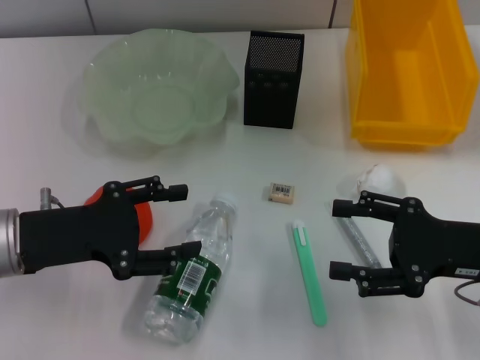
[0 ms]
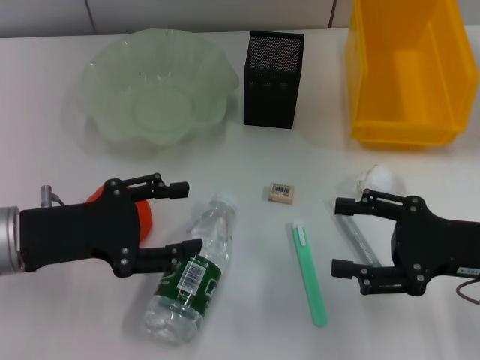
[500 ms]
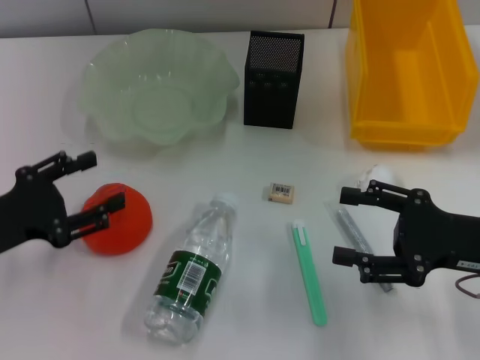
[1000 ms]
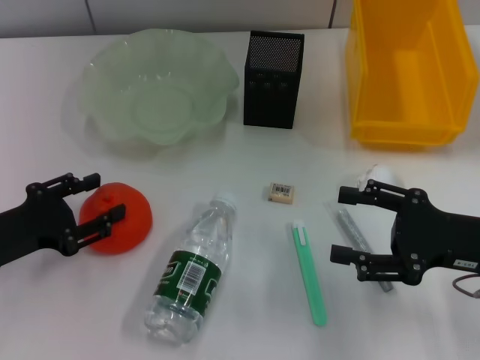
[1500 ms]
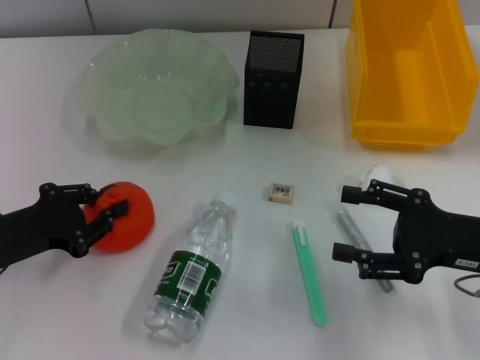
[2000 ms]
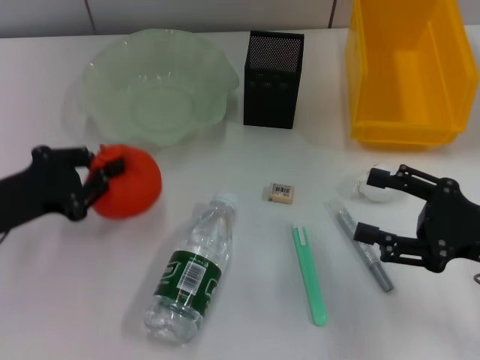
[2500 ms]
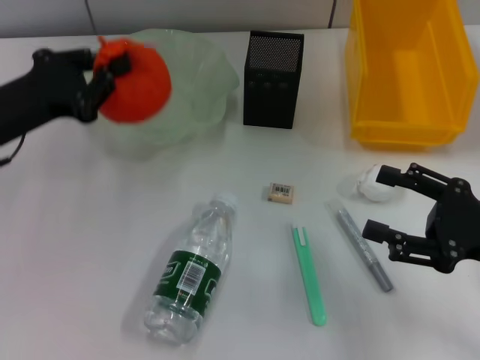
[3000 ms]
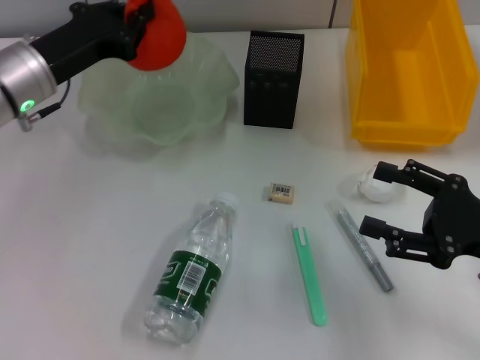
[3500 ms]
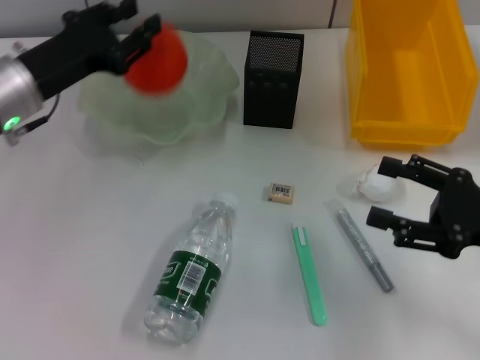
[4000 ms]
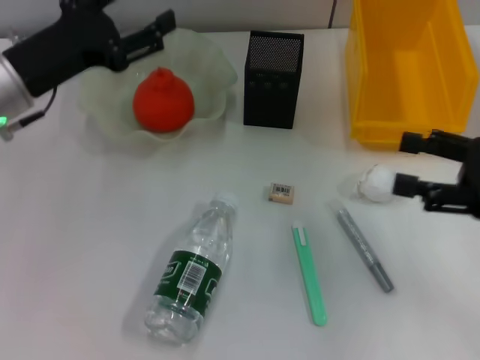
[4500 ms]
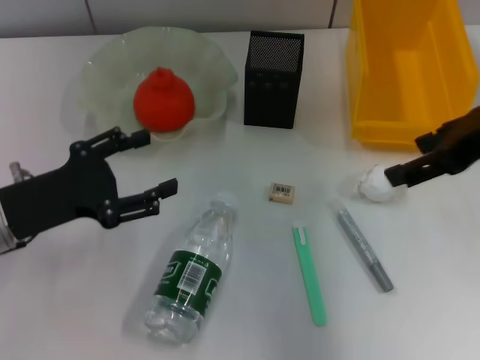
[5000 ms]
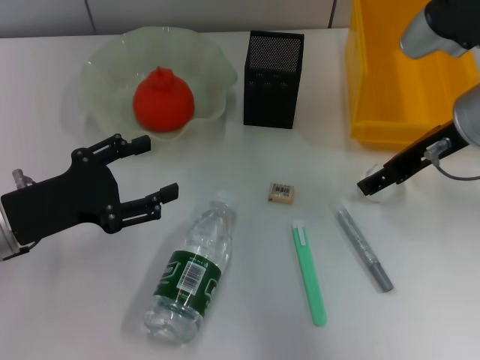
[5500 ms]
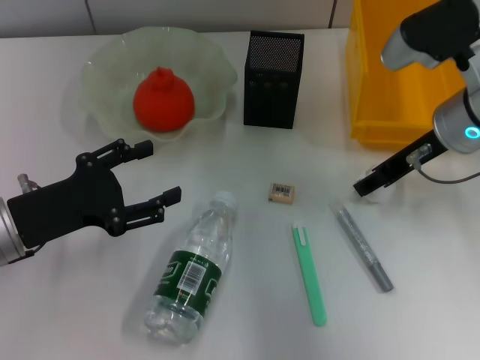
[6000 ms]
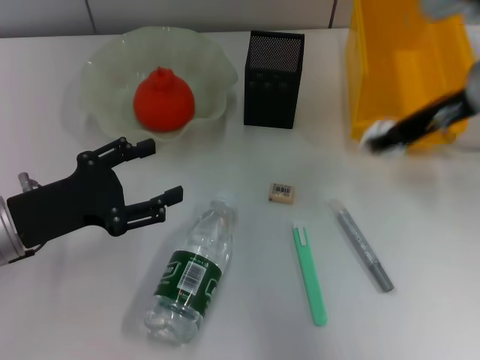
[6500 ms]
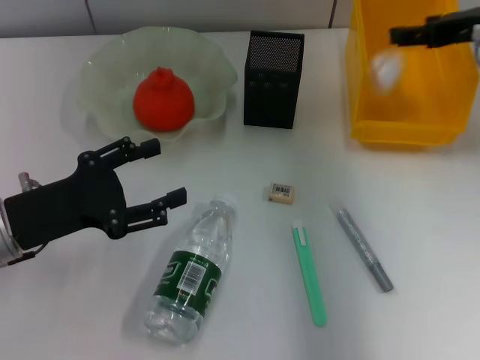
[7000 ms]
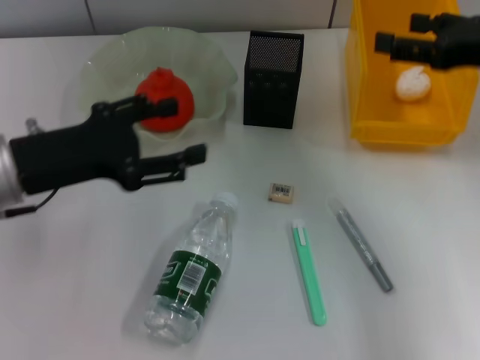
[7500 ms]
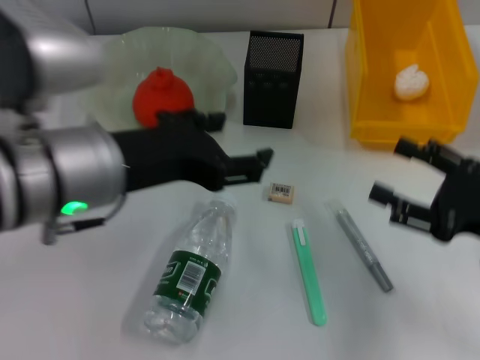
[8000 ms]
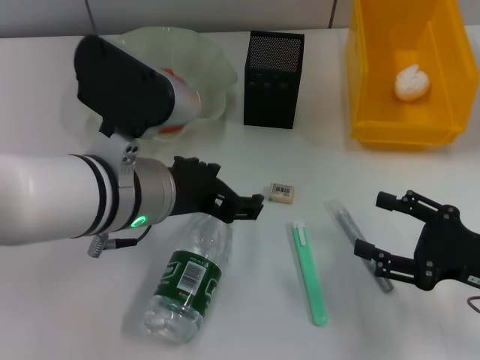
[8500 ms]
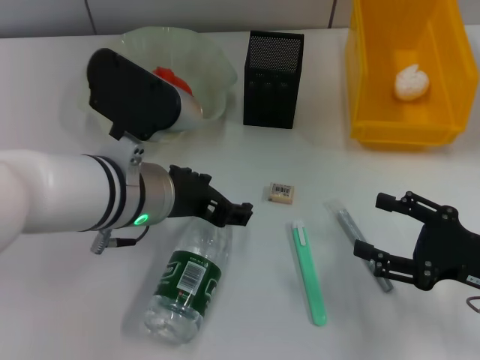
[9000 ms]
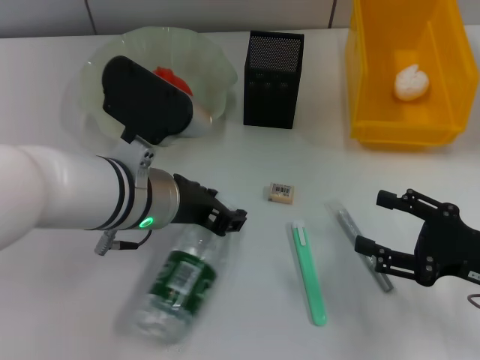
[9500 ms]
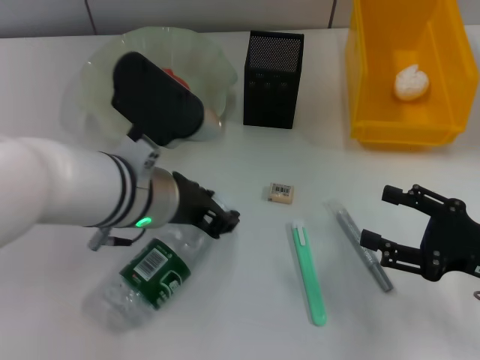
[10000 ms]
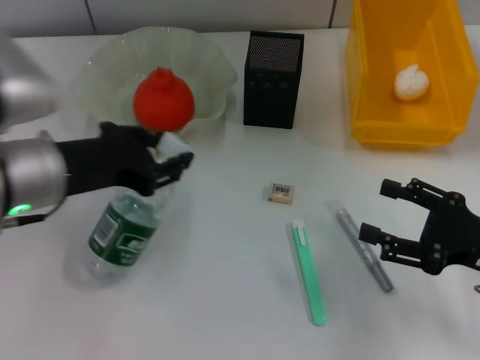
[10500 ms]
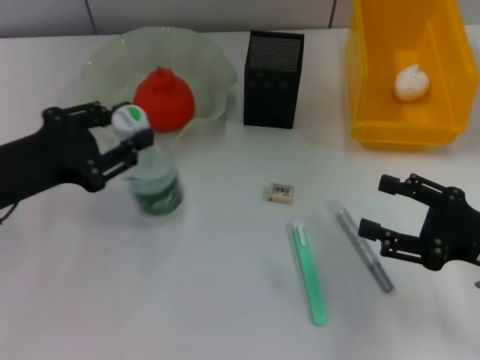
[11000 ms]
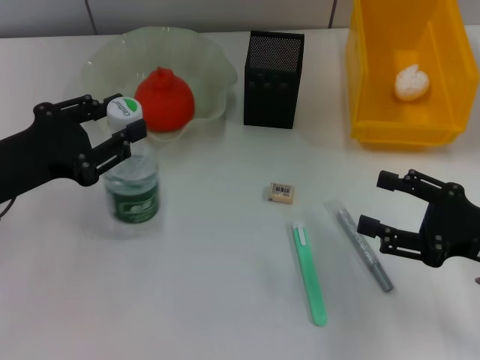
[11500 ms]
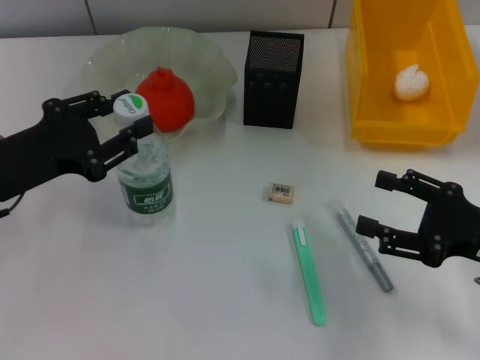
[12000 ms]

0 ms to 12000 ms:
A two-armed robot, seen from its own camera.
Step, 0 ms to 2000 ms: Grab the orange with the left hand.
Step, 2500 ms to 4000 ms: Place the orange into the fruit bowl with the left hand.
Step, 5000 ms to 6000 ms: Grab the paper ball with the right hand.
Step, 6500 ms to 7000 ms: Place the paper ball into the trash can with the right hand.
Step, 7500 ms to 9500 ms: Grab the water bottle with the left hand.
0 ms to 2000 ms: The left gripper changes place by about 5 cm, and closes up.
2000 ms to 4000 ms: The left gripper is displaced forward and upward by approximately 15 cm.
4000 ms to 6000 ms: The left gripper is displaced backward and downward by some 10 cm, and opens; the right gripper goes about 20 cm forward, to the left and upward.
6000 ms to 8000 ms: The right gripper travels backward, to the right and downward by about 20 cm; the left gripper travels to the right and upward by approximately 20 cm.
8000 ms to 10000 ms: The left gripper is displaced downward by some 5 cm, and closes.
10000 ms to 12000 ms: The left gripper goes roughly 15 cm to the left.

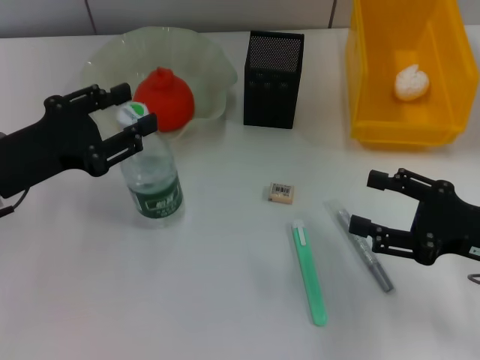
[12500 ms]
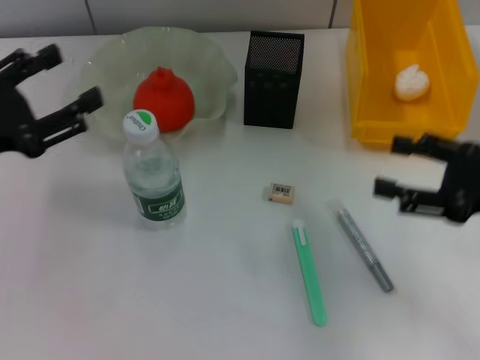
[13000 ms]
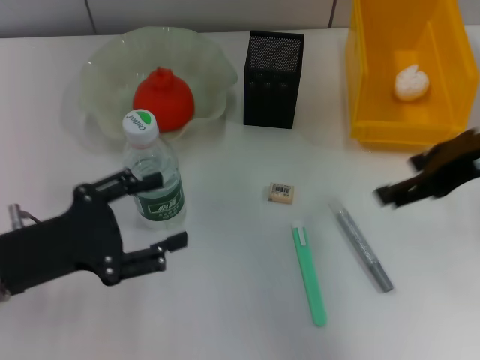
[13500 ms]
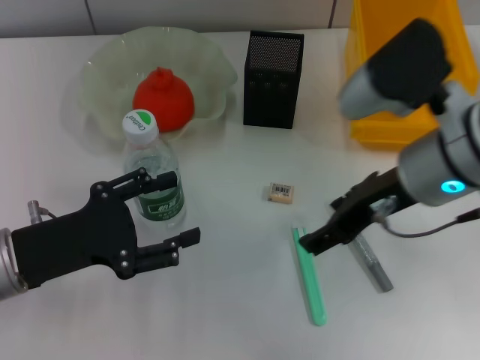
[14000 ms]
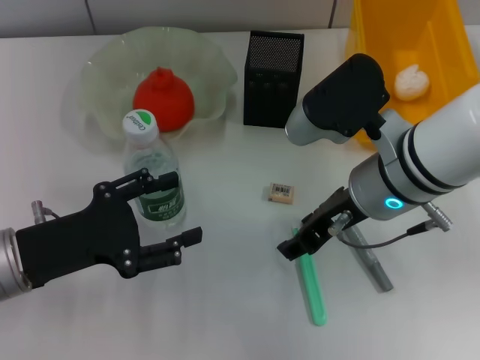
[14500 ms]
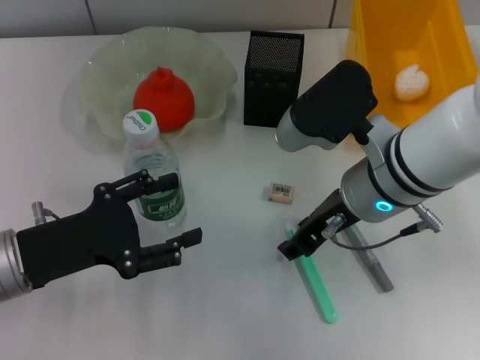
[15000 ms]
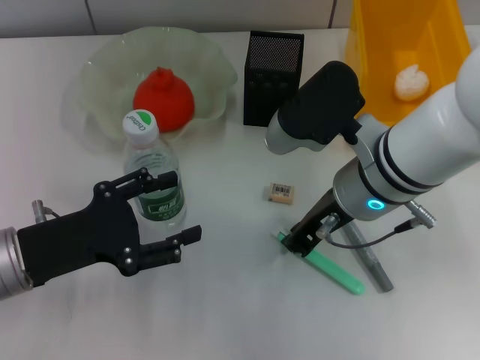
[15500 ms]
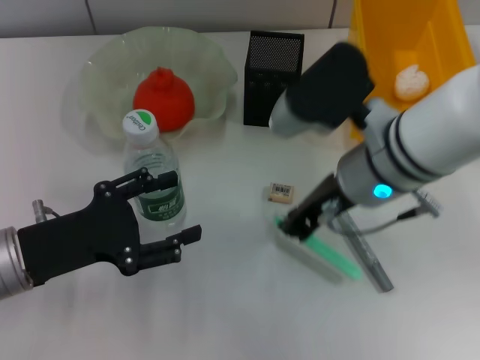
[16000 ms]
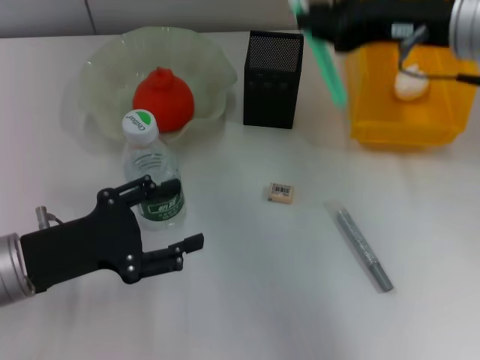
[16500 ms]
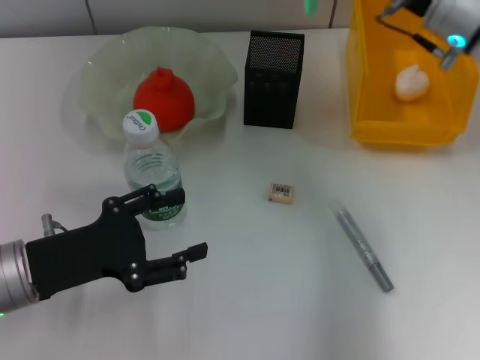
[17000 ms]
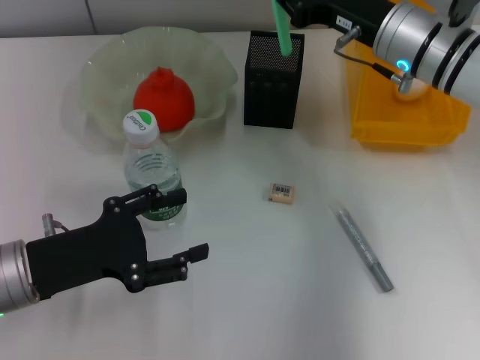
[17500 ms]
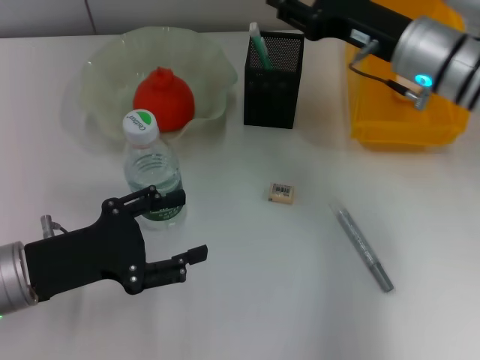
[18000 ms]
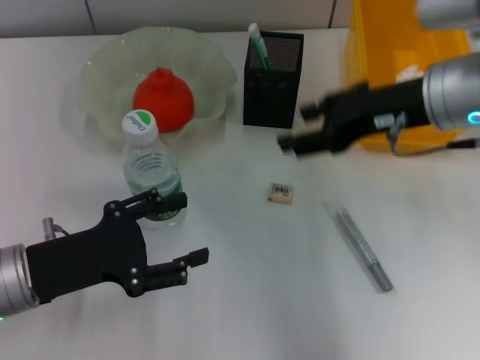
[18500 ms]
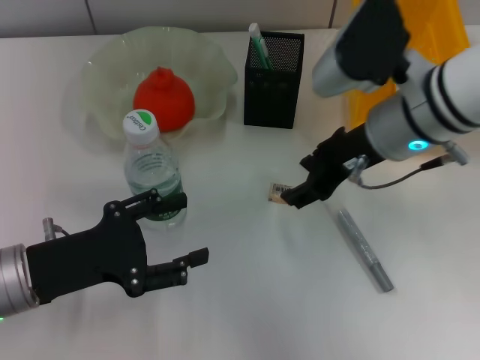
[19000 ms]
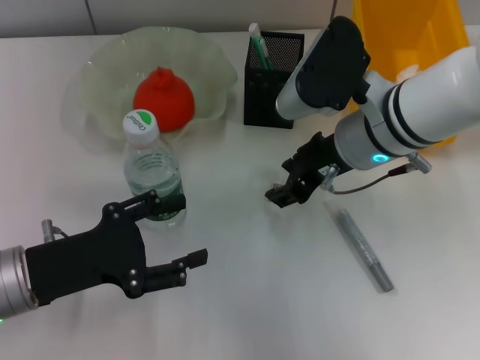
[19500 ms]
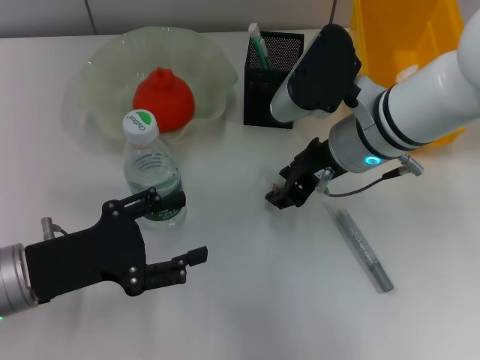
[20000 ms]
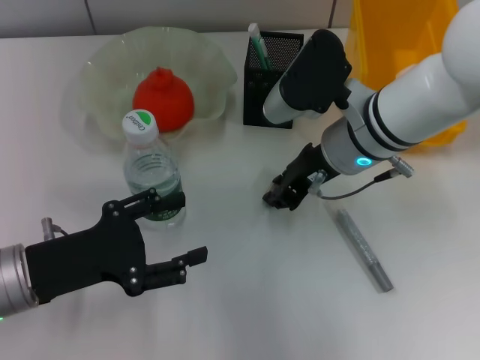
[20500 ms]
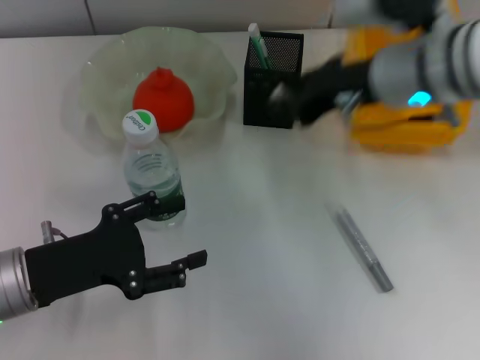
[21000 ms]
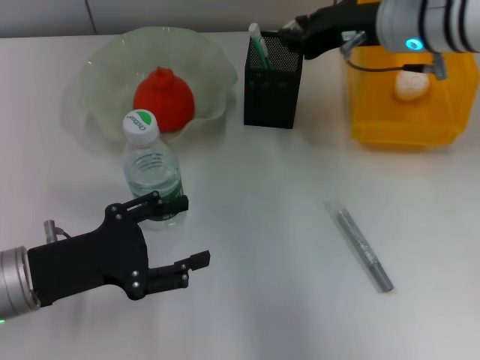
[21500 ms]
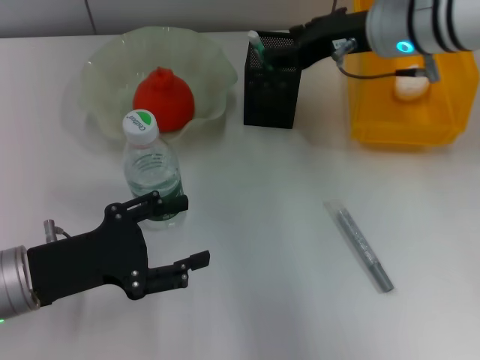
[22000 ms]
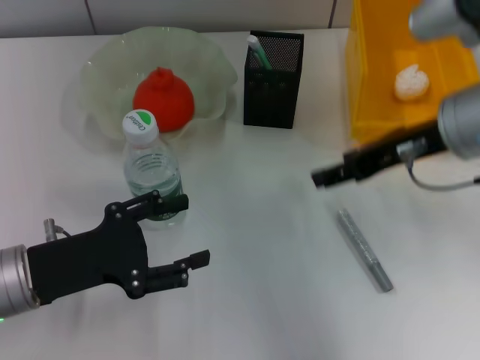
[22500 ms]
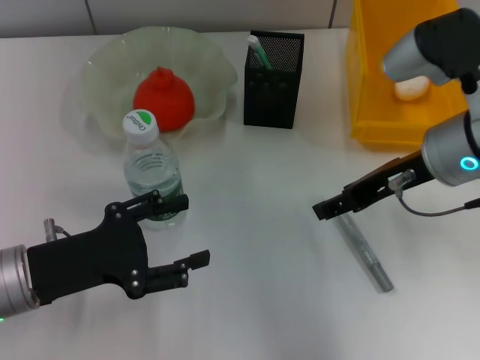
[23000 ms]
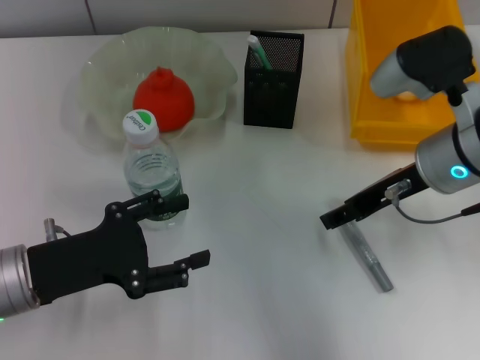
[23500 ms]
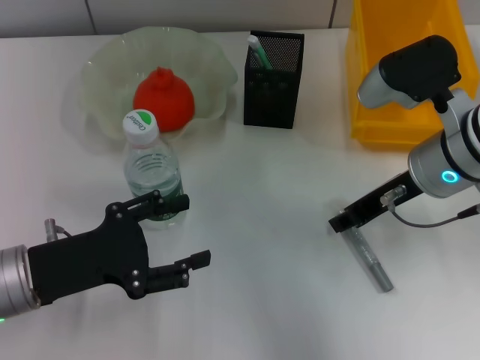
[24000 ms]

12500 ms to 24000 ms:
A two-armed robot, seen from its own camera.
Step, 14000 ms to 15500 ms: Grab the blue utility knife with the right hand.
Step, 16000 ms to 17500 ms: Place the blue utility knife into the pen holder with the right hand.
Step, 18000 ms to 20500 ms: Grab the eraser with the right hand.
Step, 21000 ms to 22000 ms: Put the eraser into the pen holder with the right hand.
12500 ms to 14500 ms: The right gripper travels to the left and forward by roughly 20 cm; the left gripper ends up roughly 5 cm from where it was, and opens up.
14500 ms to 16500 ms: The right gripper moves upward and to the right, some 10 cm, and closes its fingers.
16500 ms to 18500 ms: The right gripper opens up.
18500 ms to 20000 ms: The right gripper is displaced to the left and downward by approximately 10 cm.
20000 ms to 22000 ms: The right gripper travels upward and forward by approximately 10 cm.
22000 ms to 24000 ms: The right gripper heads backward and downward, covering about 10 cm.

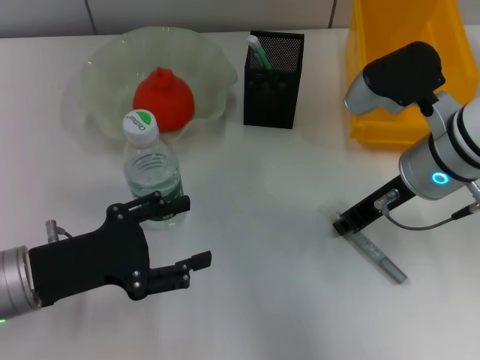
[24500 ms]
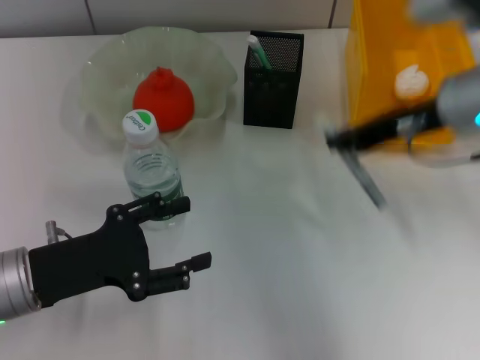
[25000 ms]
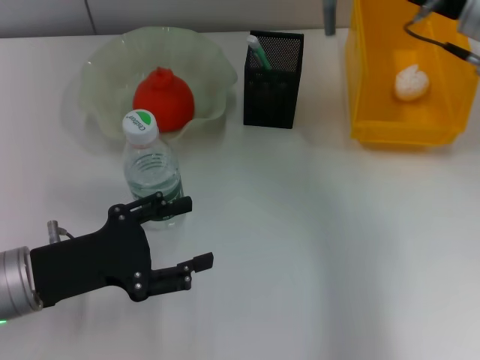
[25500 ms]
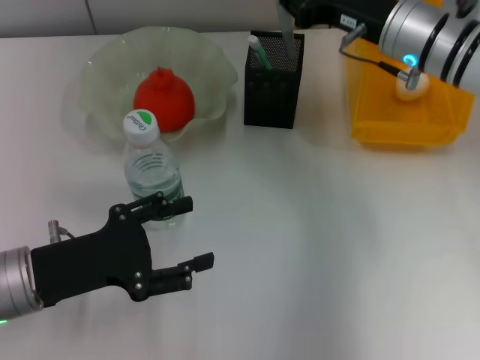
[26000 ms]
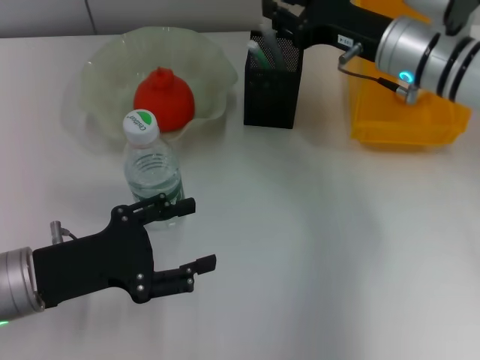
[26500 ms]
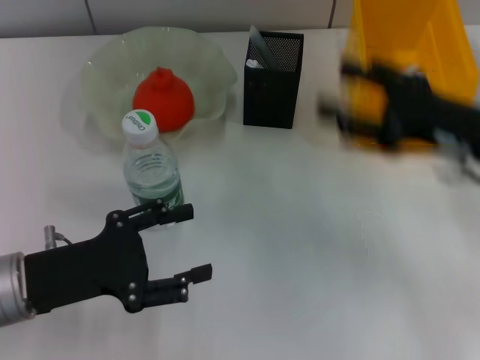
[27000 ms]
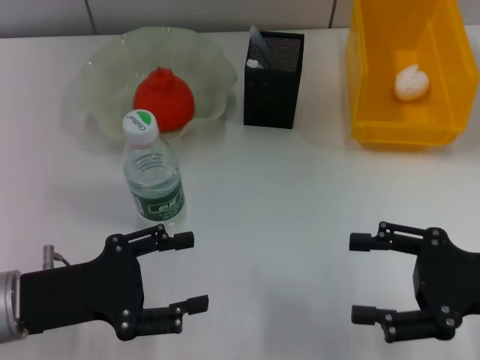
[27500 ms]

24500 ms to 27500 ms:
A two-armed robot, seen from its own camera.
Step, 25000 ms to 26000 ms: Place the gray glue into the pen holder with the right hand.
24500 ms to 26000 ms: The right gripper goes approximately 10 cm forward.
26000 ms to 27500 ms: The right gripper travels backward and to the right by roughly 25 cm, and opens.
